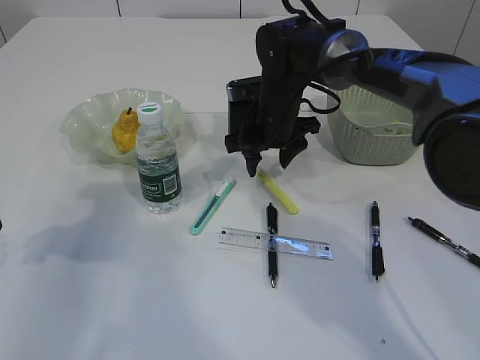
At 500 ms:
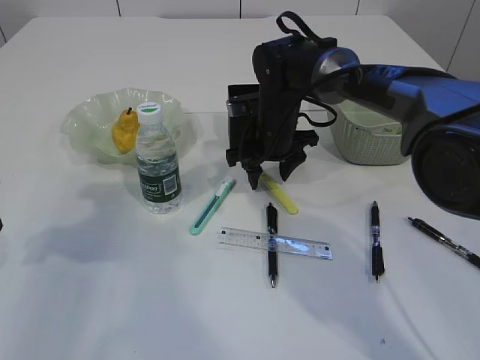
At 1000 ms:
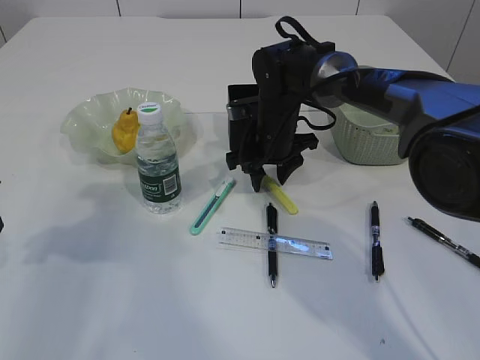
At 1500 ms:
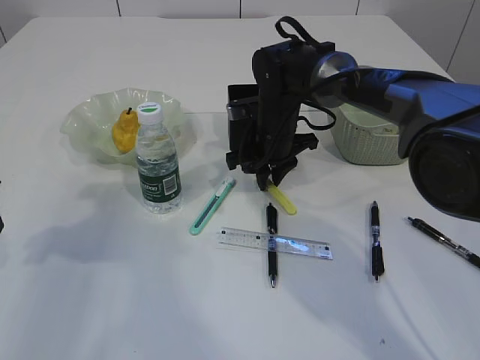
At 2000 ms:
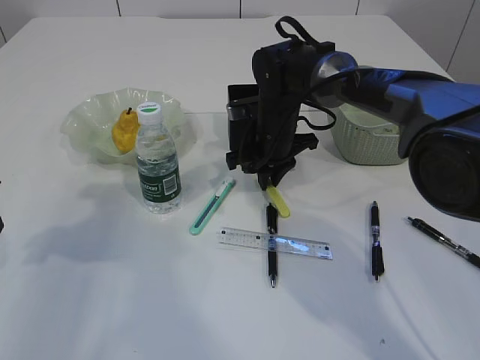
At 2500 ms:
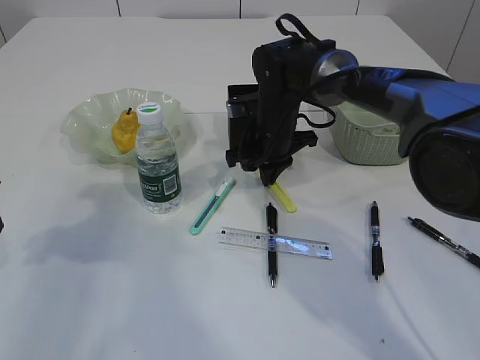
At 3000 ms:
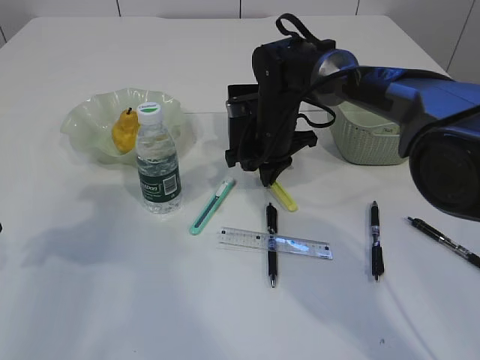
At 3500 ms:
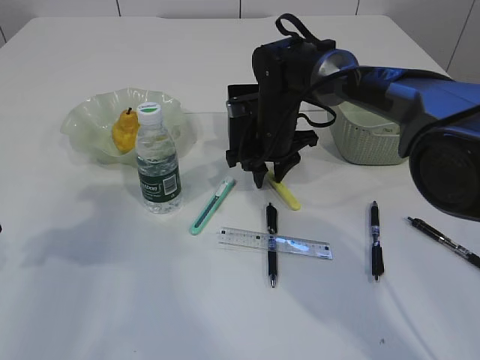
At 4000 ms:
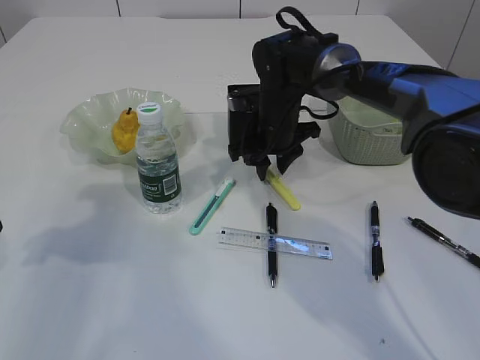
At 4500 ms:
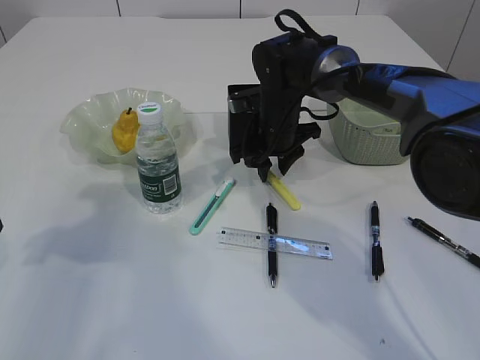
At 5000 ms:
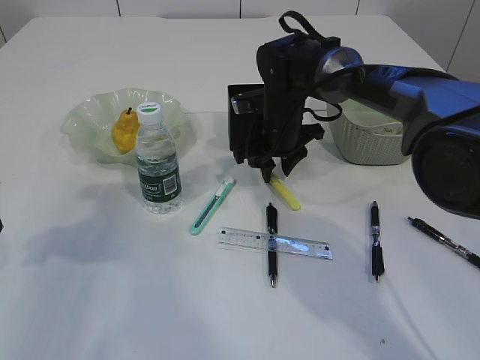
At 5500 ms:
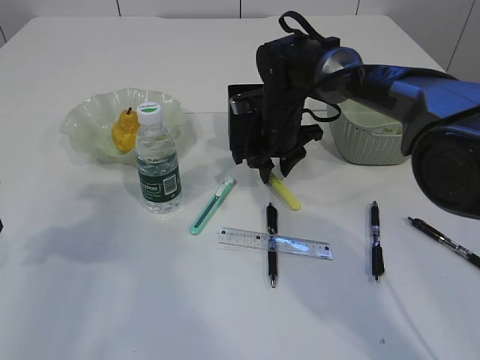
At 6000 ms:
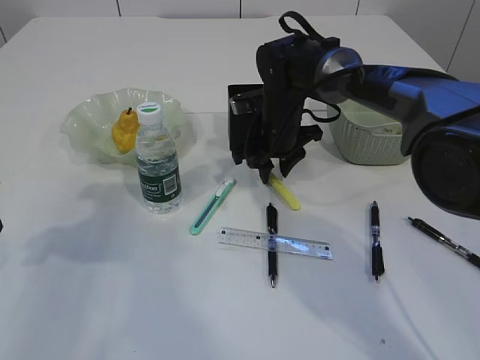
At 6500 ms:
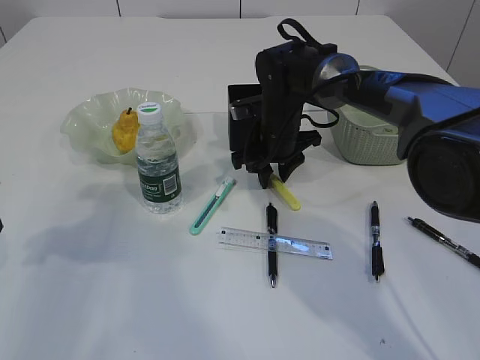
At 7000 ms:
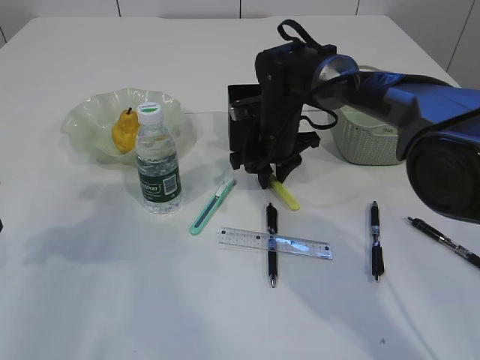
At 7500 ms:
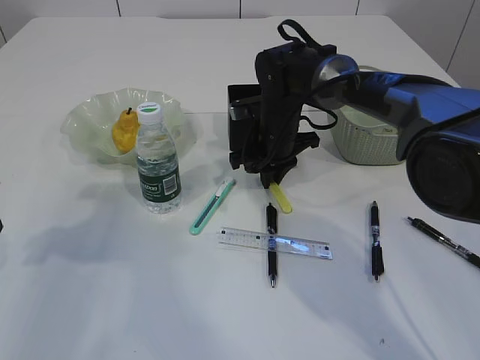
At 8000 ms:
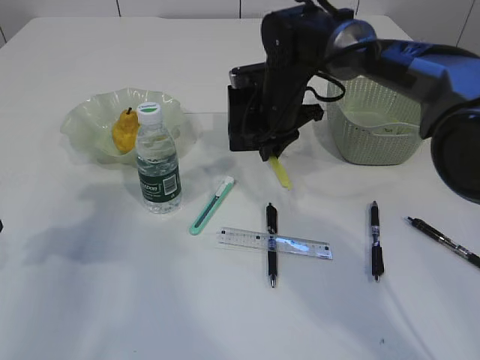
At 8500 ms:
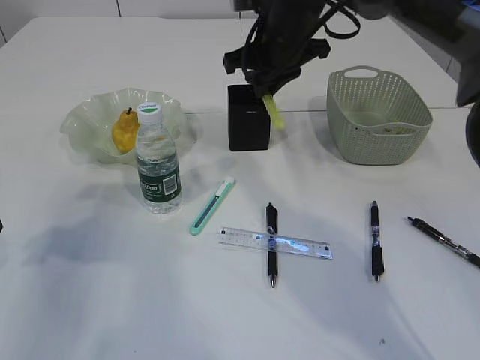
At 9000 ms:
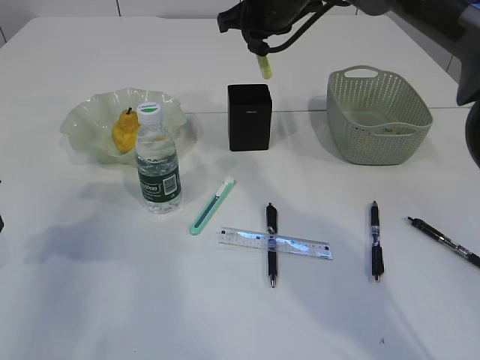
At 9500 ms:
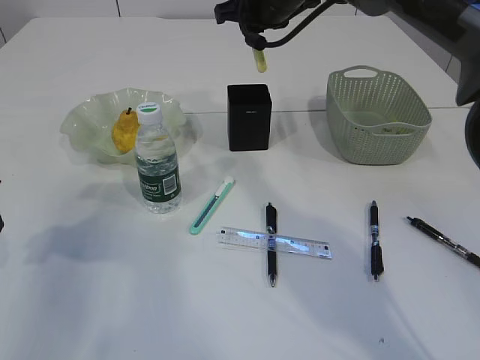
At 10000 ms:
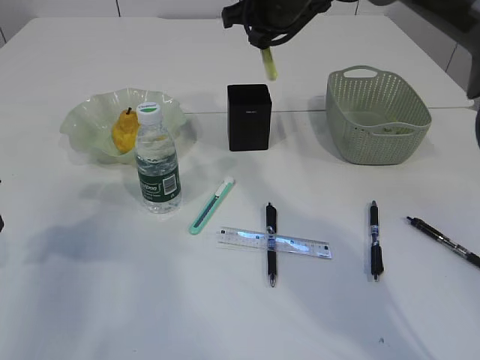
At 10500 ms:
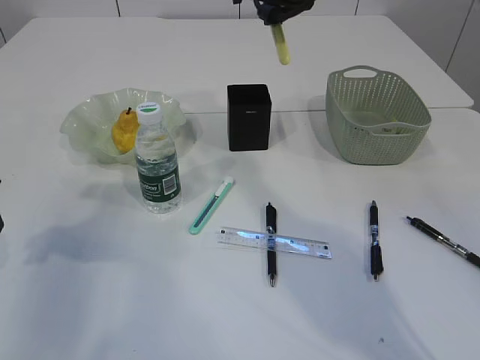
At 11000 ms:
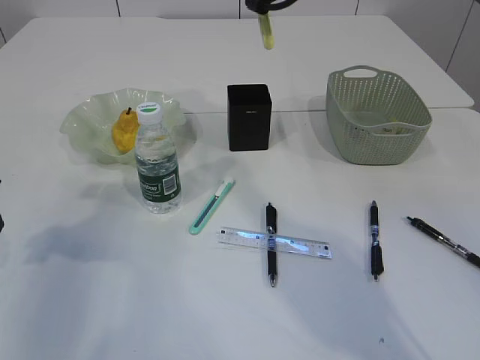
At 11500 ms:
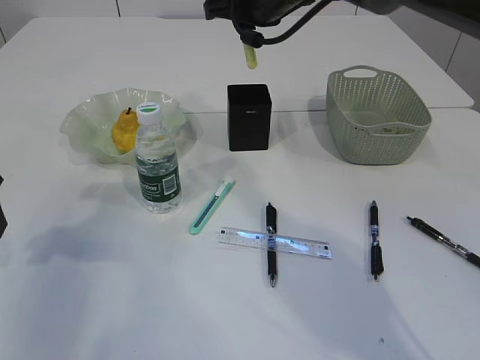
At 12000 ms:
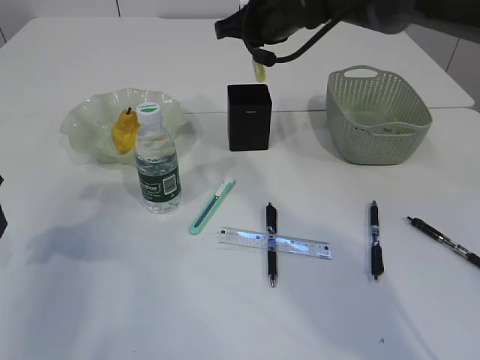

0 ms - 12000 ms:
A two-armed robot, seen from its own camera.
Step, 0 ms - 8000 ms: pick up the yellow knife.
0 ms - 2000 ms: The right gripper closes up.
2000 ms - 6000 ms: Both grippers stay about where they are.
6000 ms - 8000 ms: The right gripper closes.
8000 ms - 10000 ms: The right gripper travels upward by some 15 cm.
10000 ms - 12000 ms: The grippers move only a little.

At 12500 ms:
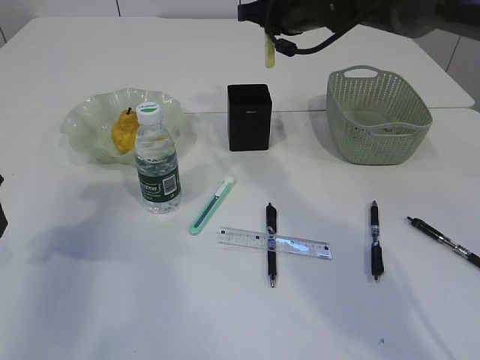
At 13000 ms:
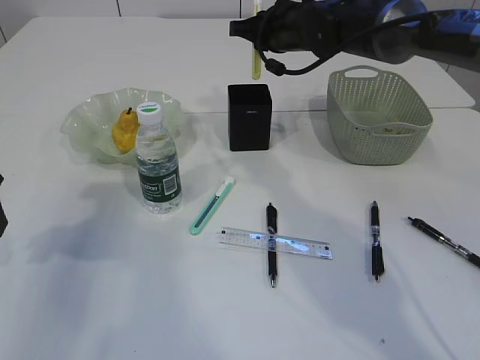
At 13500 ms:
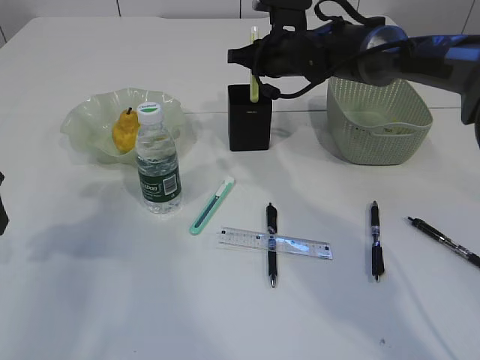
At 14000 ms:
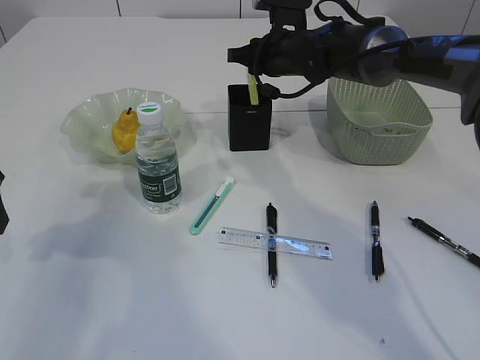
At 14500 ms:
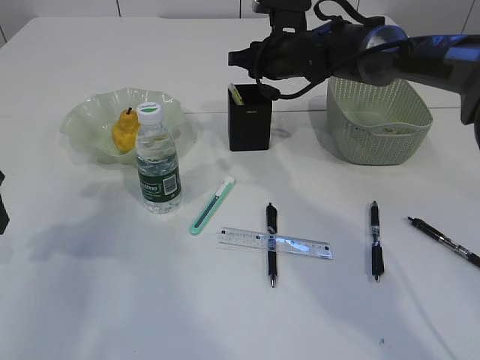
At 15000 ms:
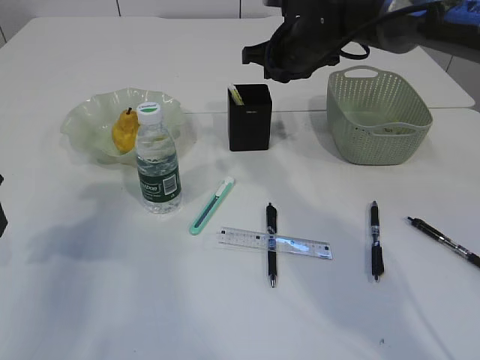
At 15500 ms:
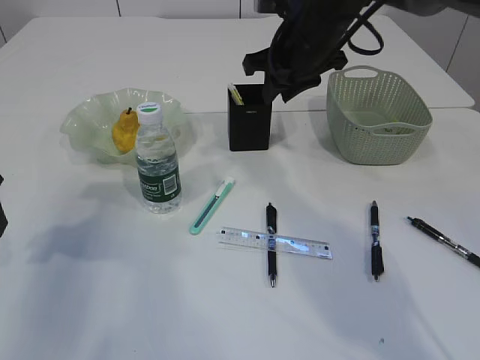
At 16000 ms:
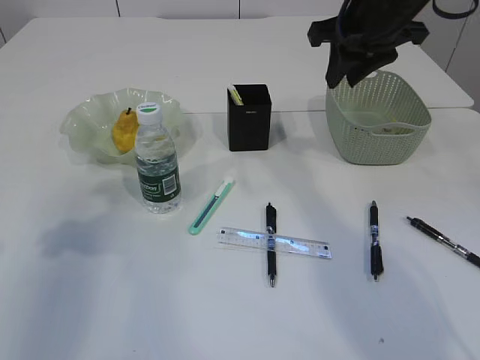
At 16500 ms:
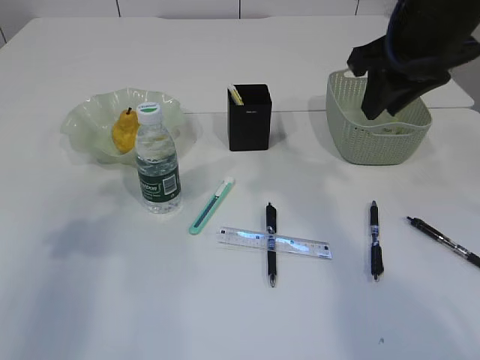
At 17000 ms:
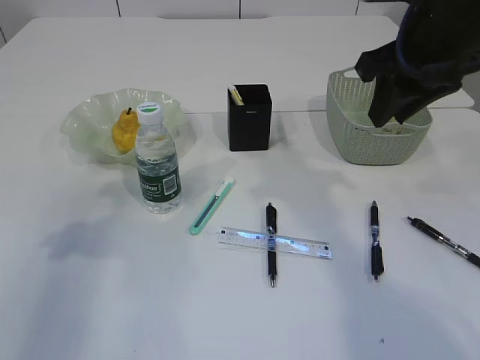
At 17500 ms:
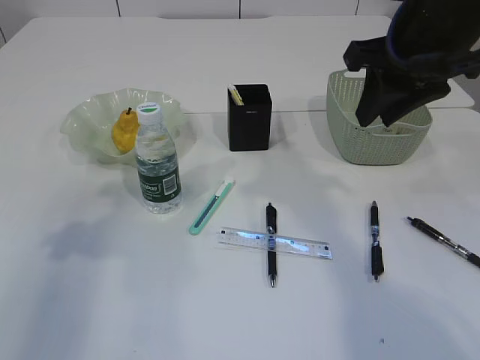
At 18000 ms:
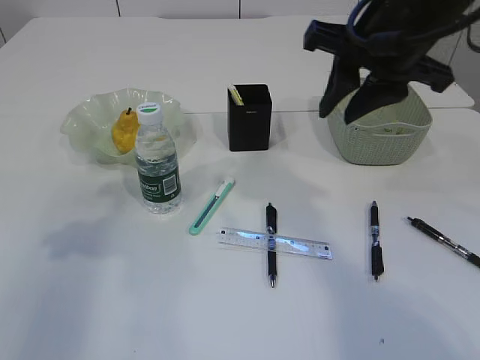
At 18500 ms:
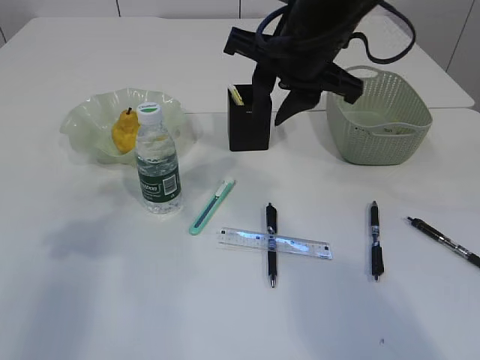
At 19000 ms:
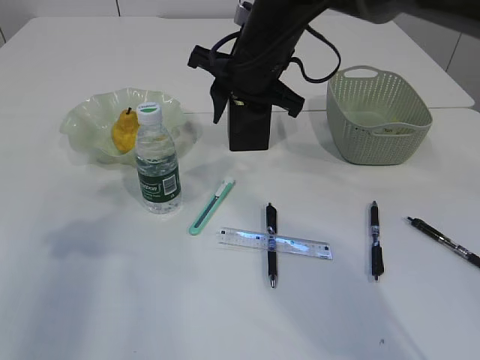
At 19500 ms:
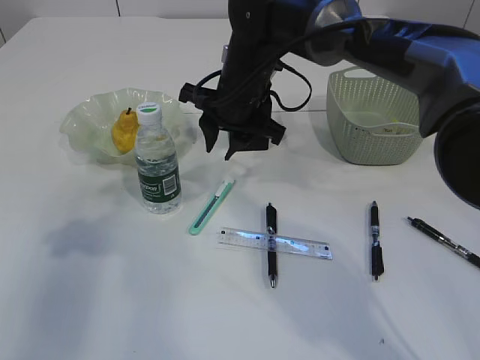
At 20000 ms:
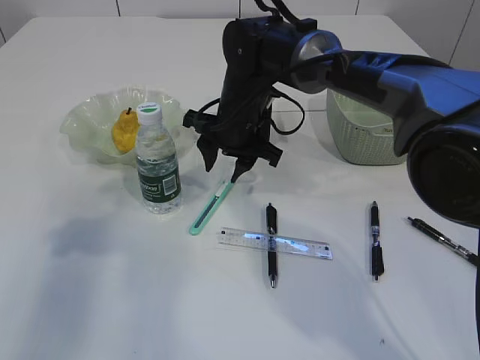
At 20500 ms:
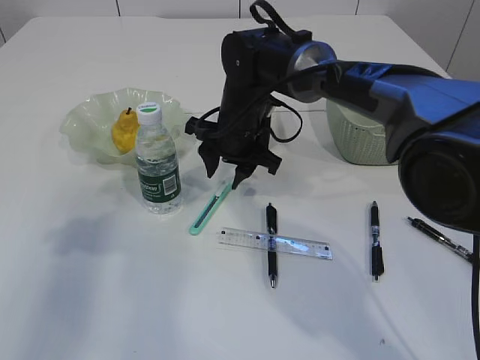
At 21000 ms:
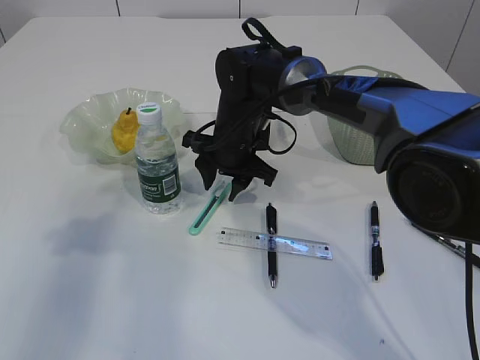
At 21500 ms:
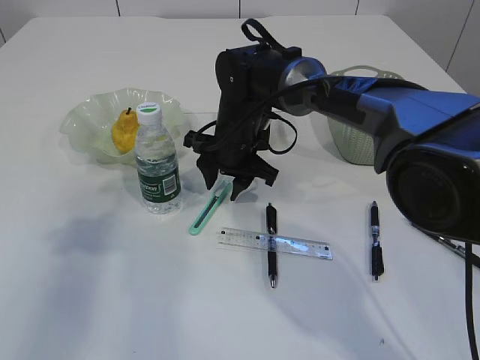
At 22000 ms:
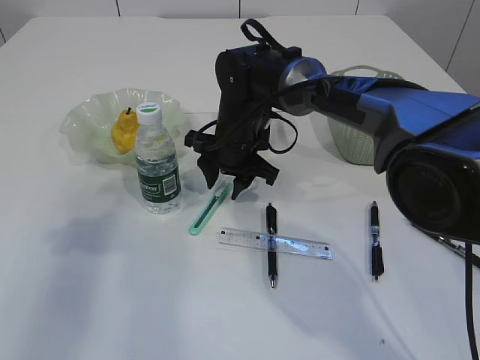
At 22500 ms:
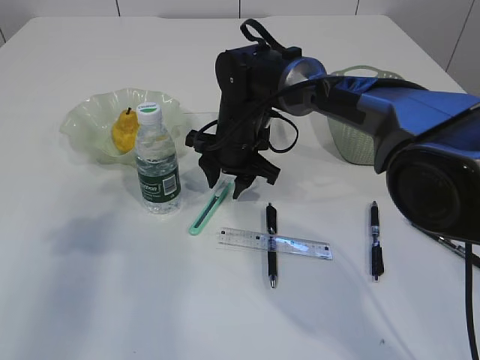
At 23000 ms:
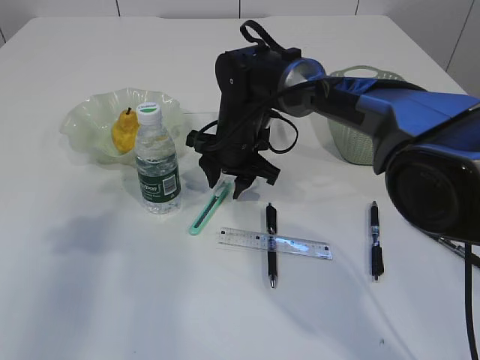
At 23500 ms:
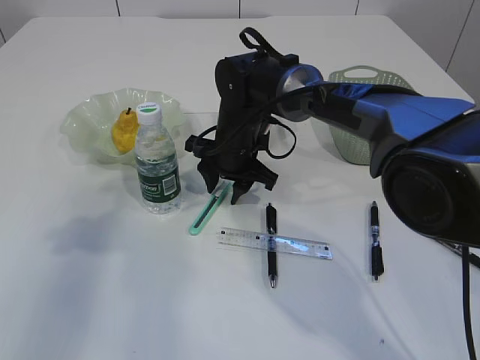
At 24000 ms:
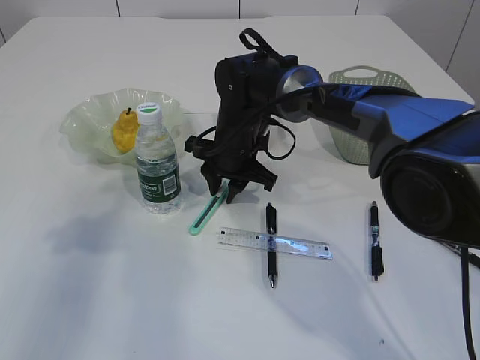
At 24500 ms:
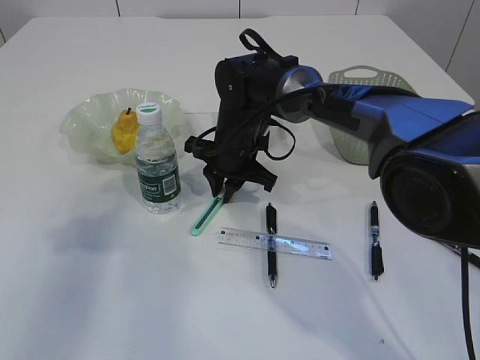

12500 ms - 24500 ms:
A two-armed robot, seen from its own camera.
Step, 12500 ms - 15500 ms: place the yellow knife into the pen holder.
12500 ms - 14500 ms: The right gripper is displaced downward by about 5 cm.
14500 ms - 16500 ms: The left gripper shifts by some 5 cm, while the right gripper travels backward, upward and to the right by about 25 cm.
16500 ms - 18500 ms: The right gripper goes about 10 cm to the left.
18500 ms - 20500 ms: The right gripper goes some 20 cm downward, forward and to the left.
20500 ms - 22500 ms: The grippers make only small movements.
22500 ms - 24500 ms: The right gripper closes up.

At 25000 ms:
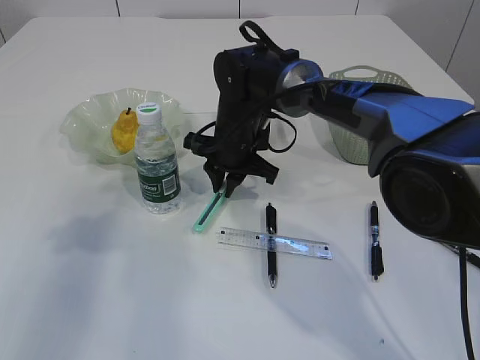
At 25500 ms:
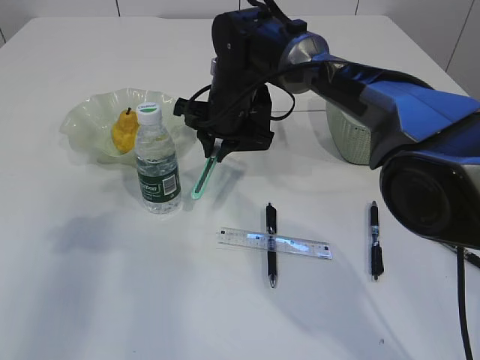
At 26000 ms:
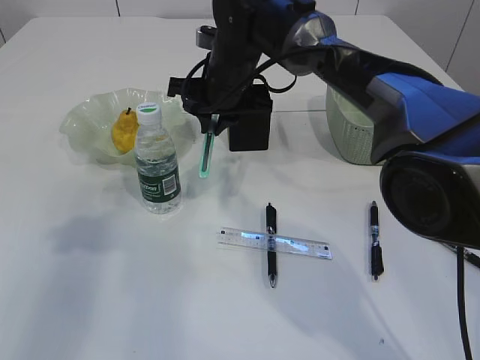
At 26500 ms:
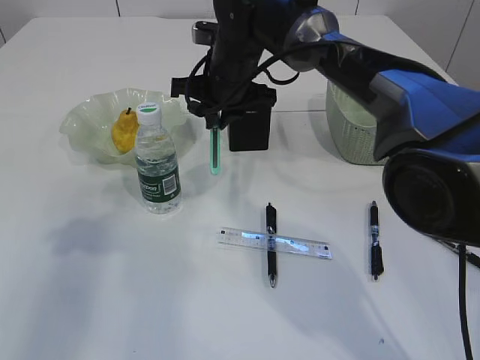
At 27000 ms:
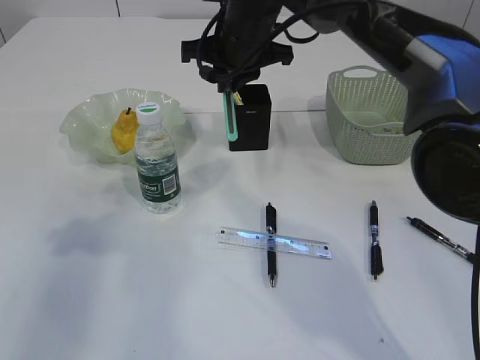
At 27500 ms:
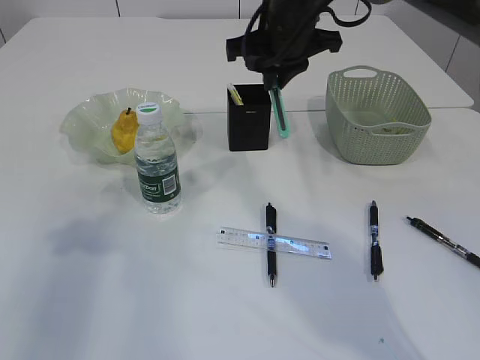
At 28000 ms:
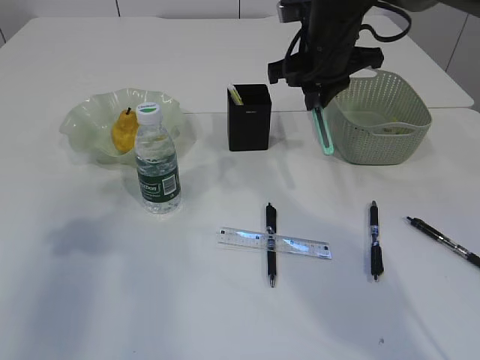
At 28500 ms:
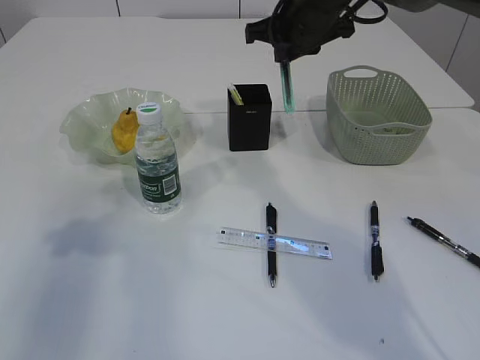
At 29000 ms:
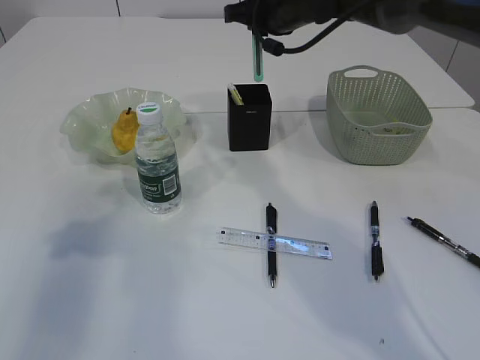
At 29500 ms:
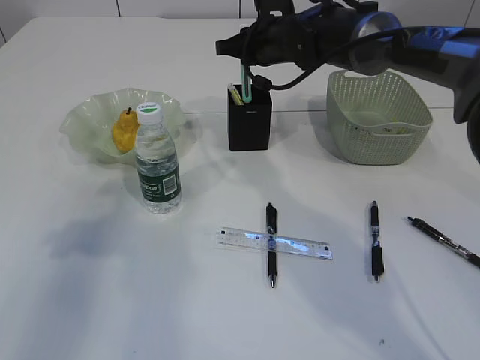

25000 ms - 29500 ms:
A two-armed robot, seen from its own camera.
25000 ms - 27000 ms: The right gripper moves upward, roughly 15 cm.
27000 ms - 29500 ms: The right gripper shifts approximately 5 cm forward.
